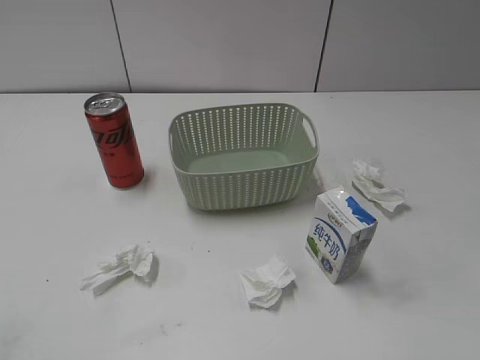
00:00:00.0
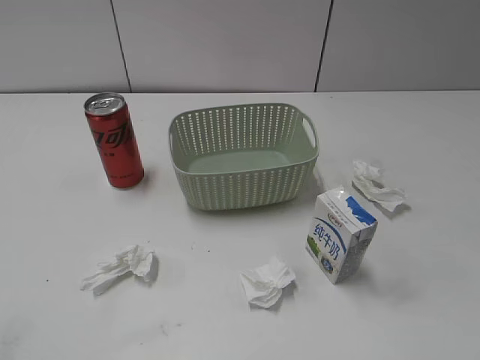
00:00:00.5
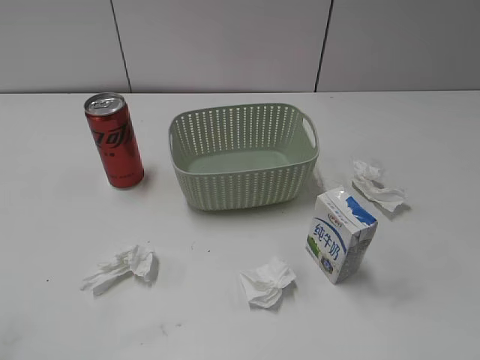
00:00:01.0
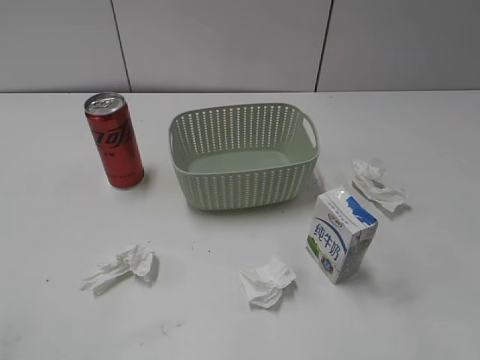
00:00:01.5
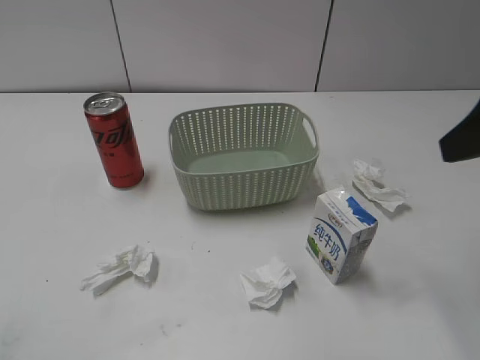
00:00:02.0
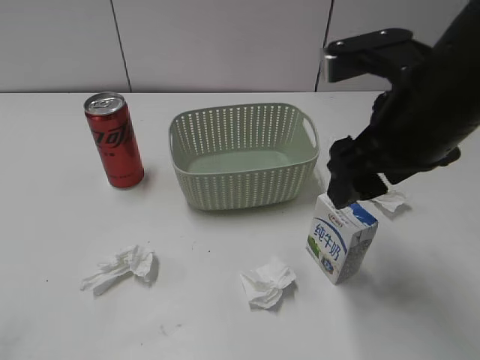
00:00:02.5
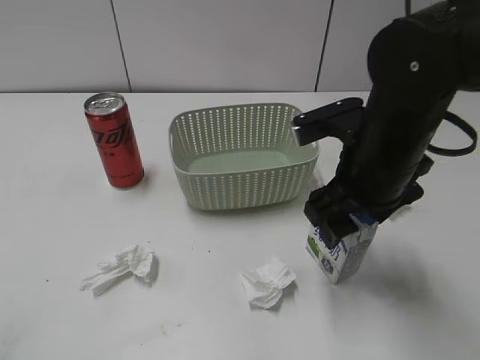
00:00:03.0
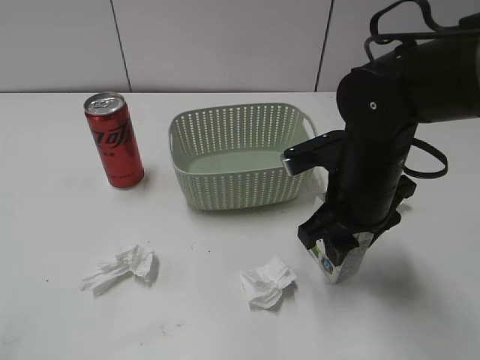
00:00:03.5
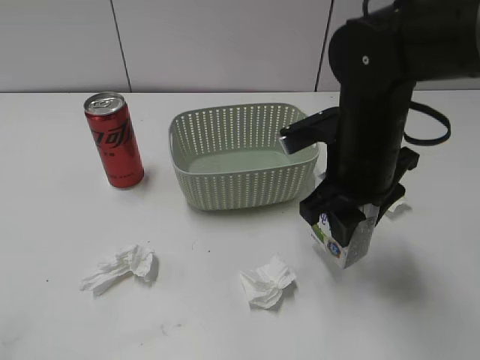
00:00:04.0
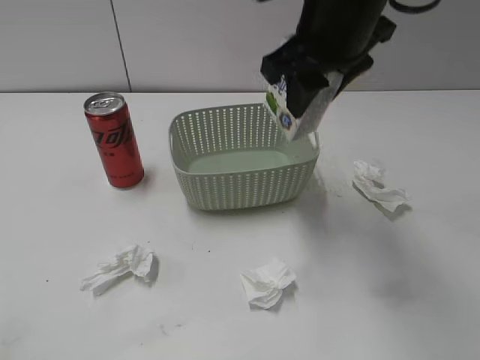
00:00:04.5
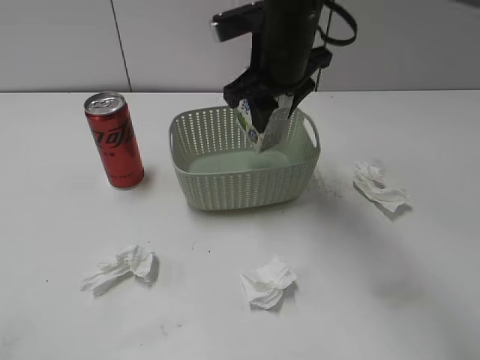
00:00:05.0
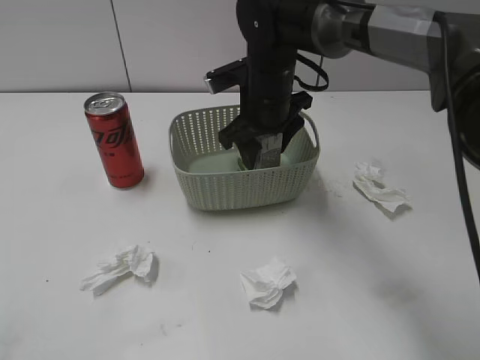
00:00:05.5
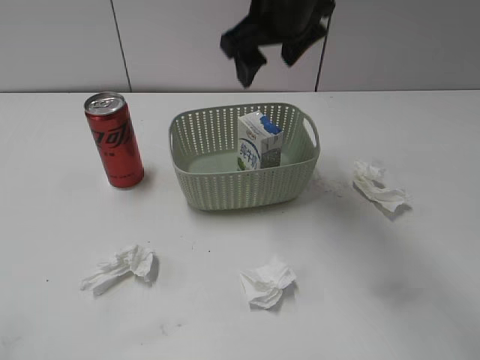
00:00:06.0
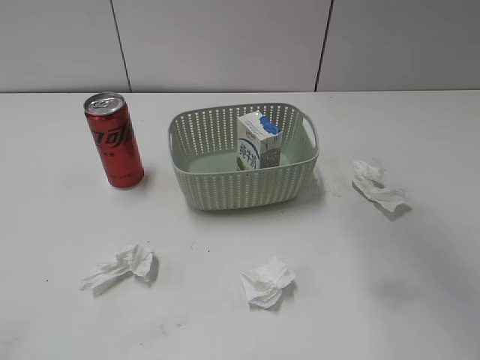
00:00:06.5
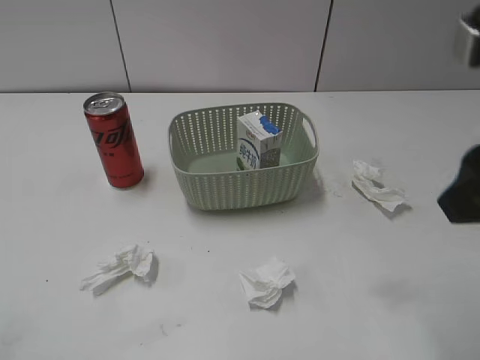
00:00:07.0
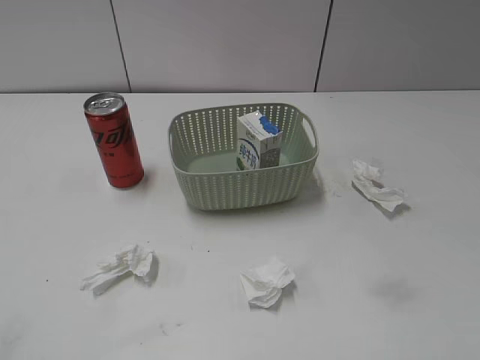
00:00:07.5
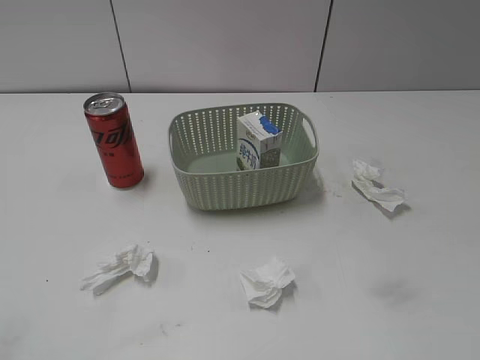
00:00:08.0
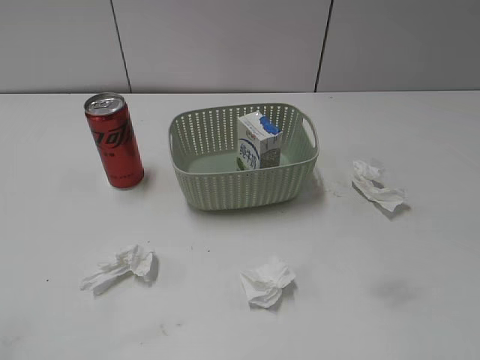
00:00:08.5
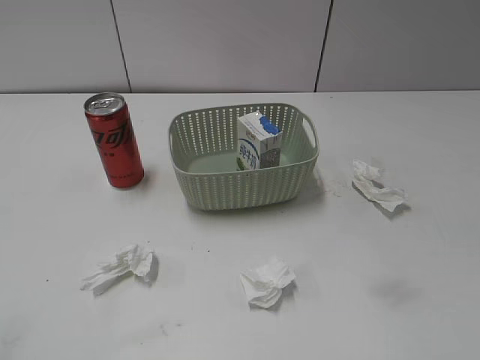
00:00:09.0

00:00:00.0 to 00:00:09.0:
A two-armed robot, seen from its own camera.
Step, 00:00:02.0 to 00:00:03.5: Grasp the milk with right gripper.
Step, 00:00:04.0 to 00:00:06.0: Place the milk in the basket with right gripper.
00:00:02.0 to 00:00:04.5: The right gripper heads to the left and forward, covering some 20 cm, and closes up.
00:00:04.5 to 00:00:07.0: The right gripper swings up and down, about 30 cm each way, with 2 reversals, and opens its fingers.
00:00:07.0 to 00:00:09.0: The right gripper shifts approximately 20 cm backward and to the right.
